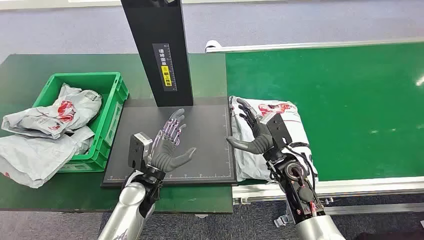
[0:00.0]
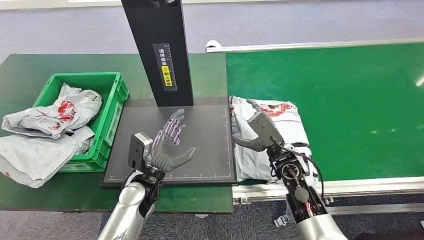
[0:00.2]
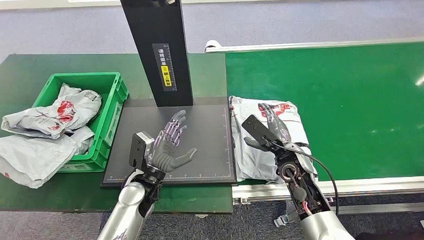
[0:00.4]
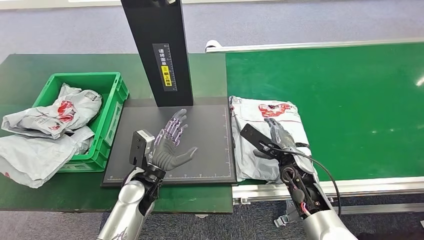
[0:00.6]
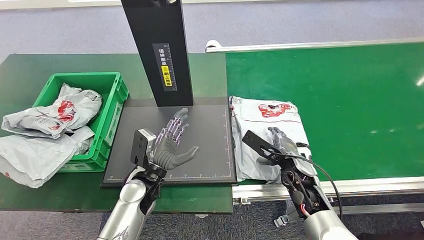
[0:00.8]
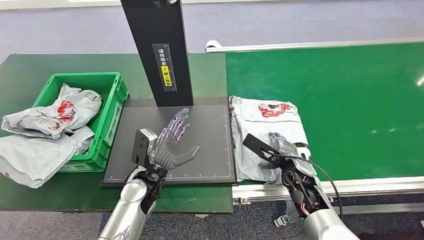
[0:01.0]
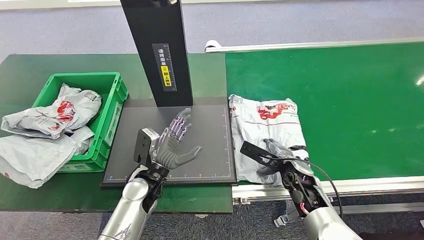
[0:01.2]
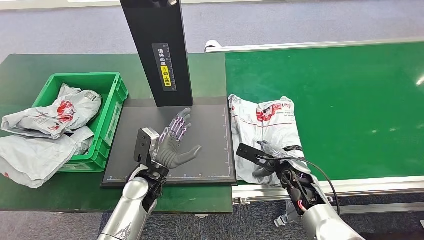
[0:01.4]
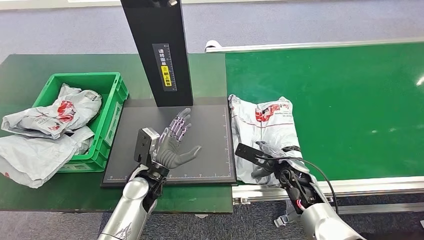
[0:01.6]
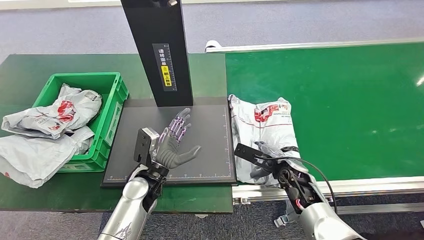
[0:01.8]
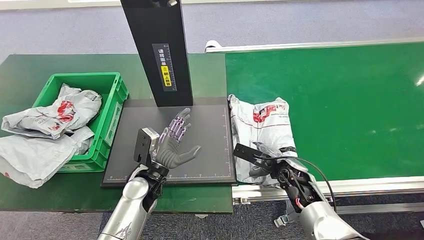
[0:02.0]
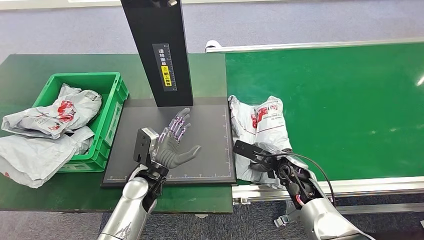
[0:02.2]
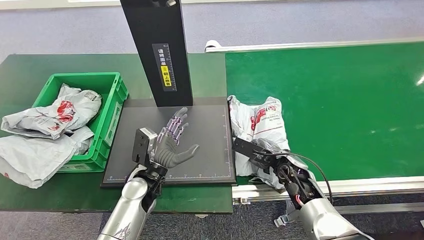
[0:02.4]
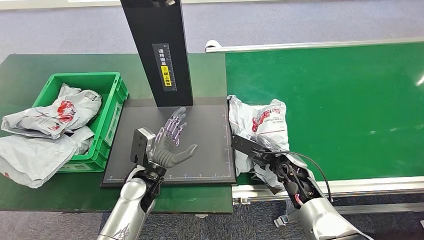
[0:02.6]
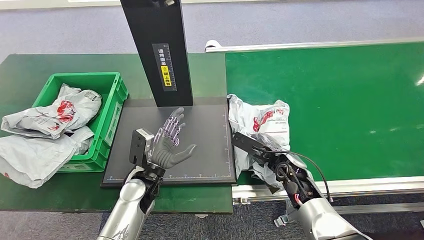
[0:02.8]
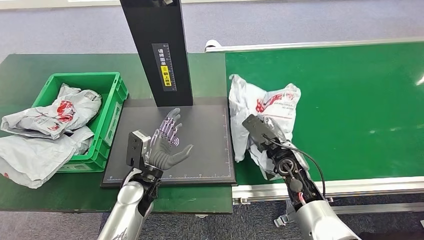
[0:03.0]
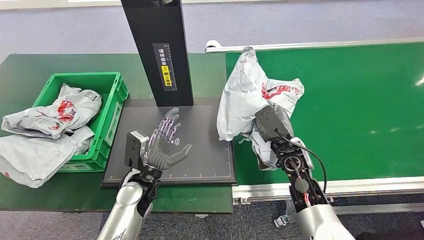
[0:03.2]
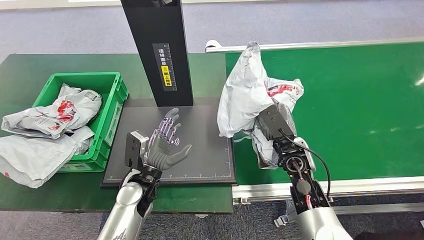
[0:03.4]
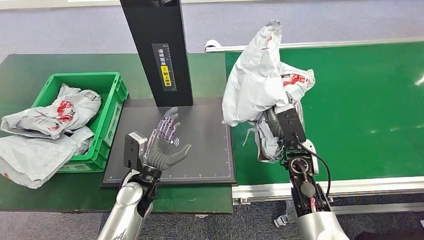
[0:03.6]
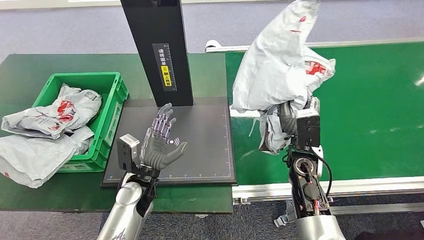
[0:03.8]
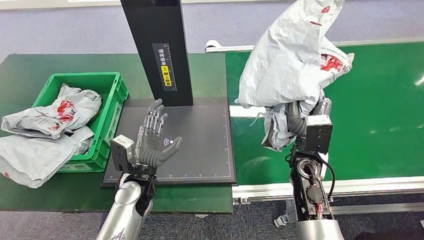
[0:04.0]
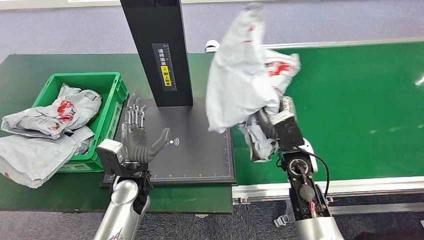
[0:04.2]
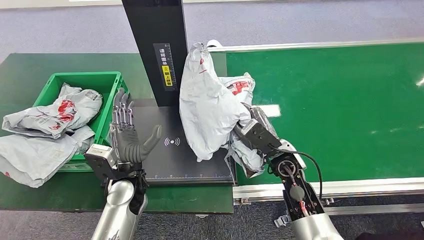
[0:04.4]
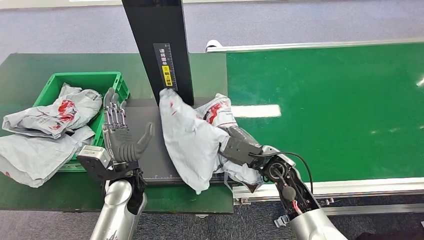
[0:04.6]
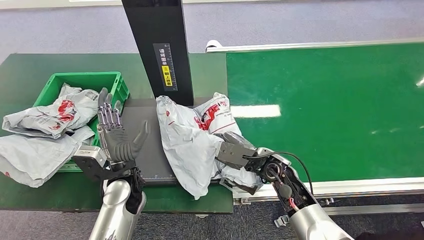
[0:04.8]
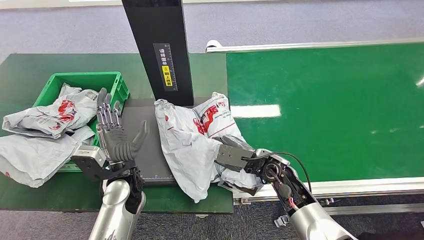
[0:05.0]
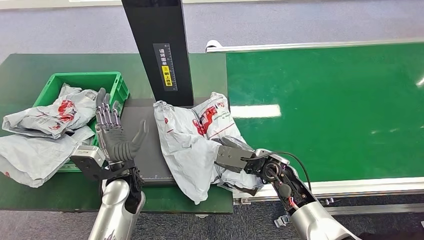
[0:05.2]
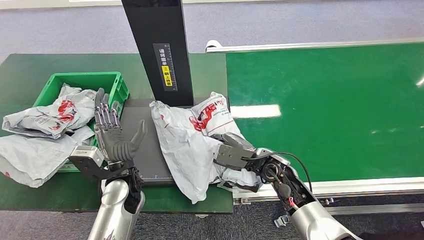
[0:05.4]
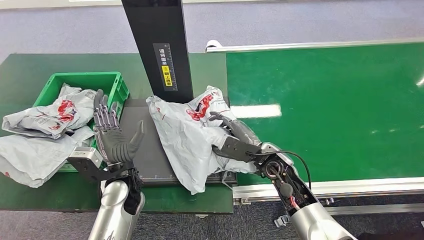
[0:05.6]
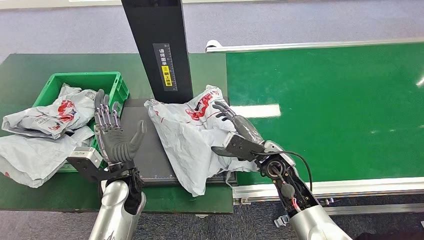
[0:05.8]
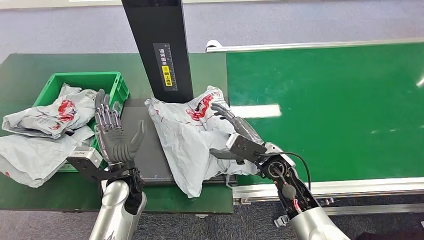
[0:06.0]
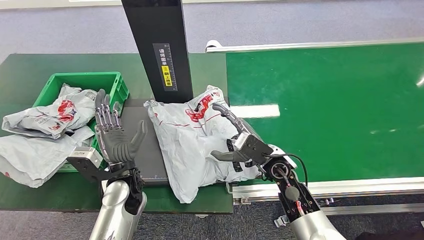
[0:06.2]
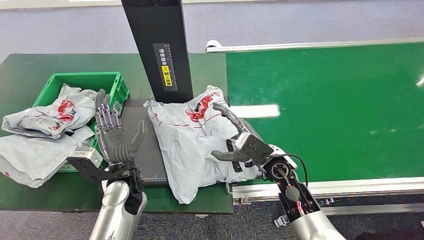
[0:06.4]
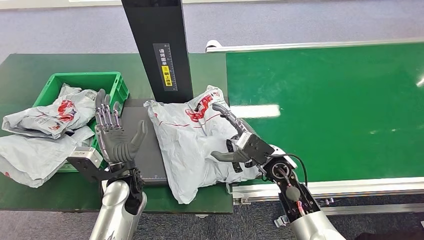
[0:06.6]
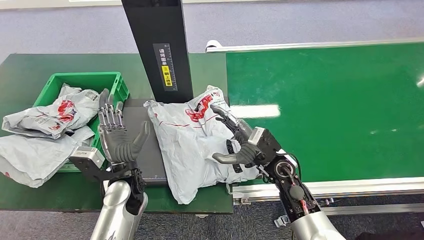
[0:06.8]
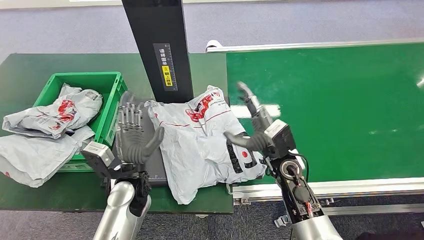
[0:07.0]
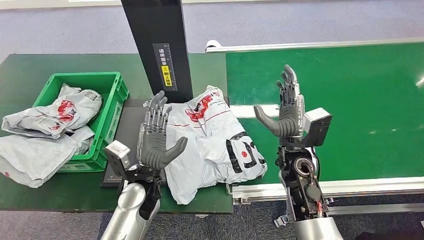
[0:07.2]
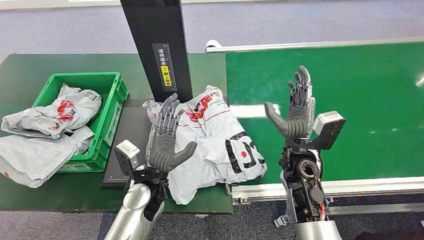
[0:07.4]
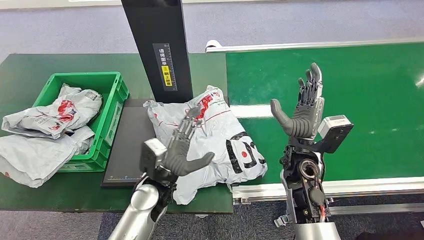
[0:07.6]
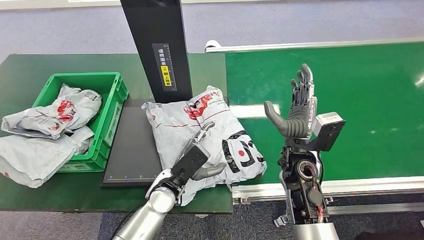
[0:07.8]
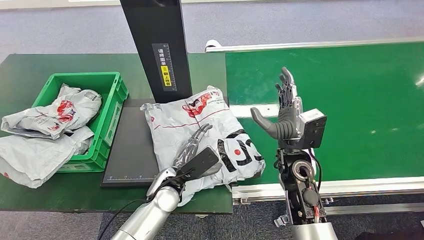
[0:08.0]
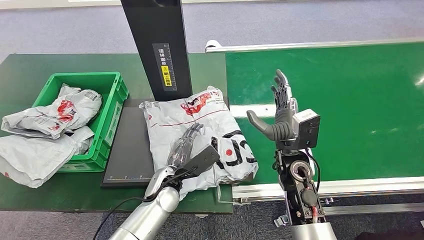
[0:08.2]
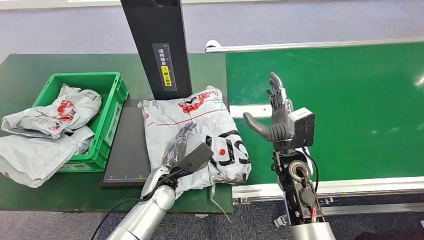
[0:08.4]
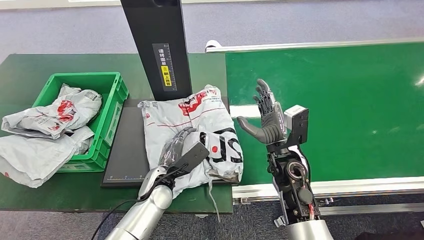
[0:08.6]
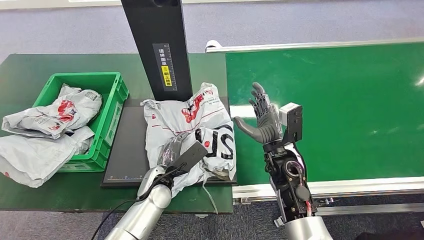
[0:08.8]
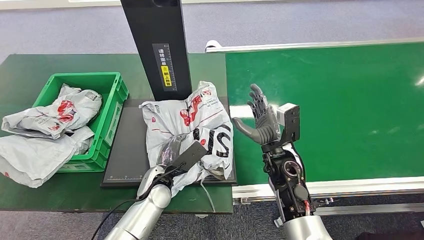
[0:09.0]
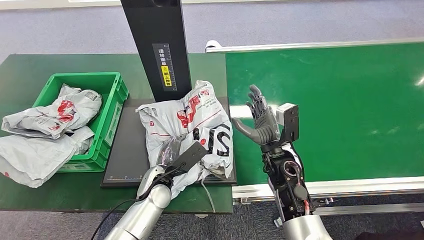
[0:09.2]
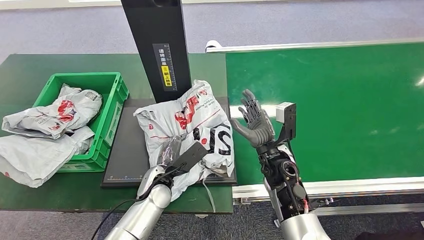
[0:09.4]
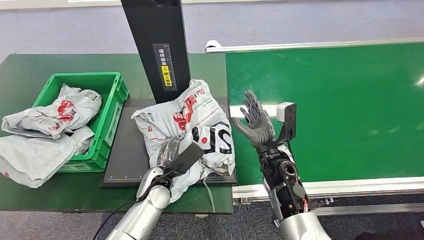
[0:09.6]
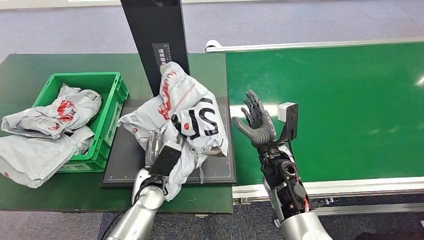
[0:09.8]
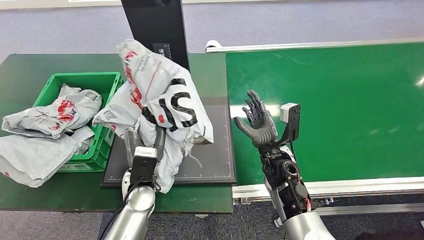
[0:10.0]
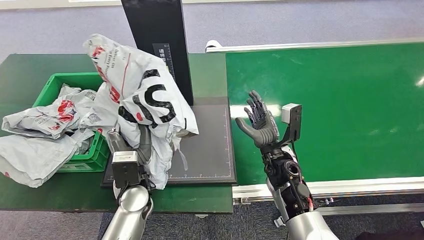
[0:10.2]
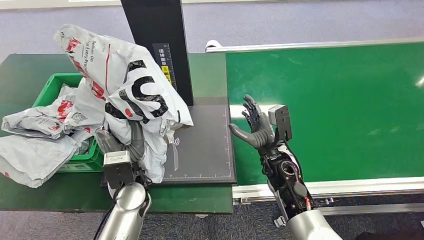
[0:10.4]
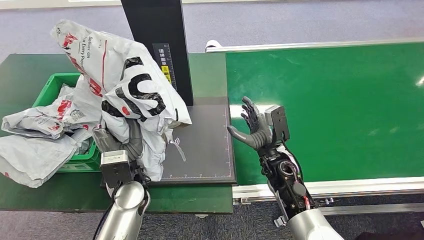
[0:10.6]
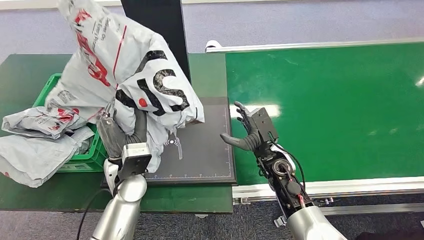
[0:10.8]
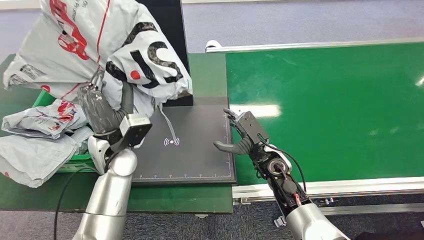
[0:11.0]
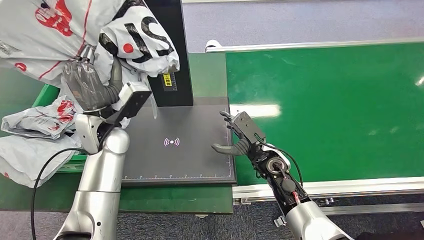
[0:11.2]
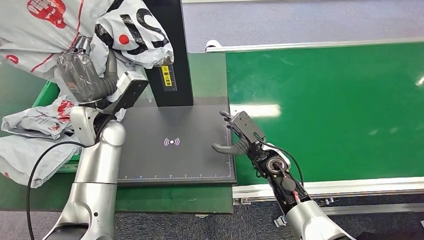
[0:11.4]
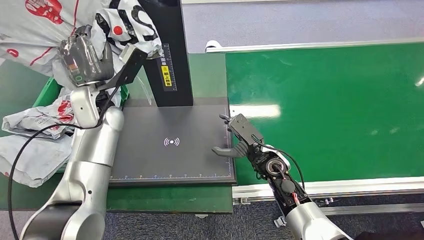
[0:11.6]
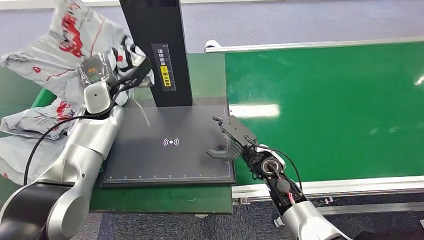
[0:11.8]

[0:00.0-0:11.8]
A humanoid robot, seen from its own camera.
Step, 0:00.0 to 0:03.2: Pick up the package from the conveyor belt.
Step, 0:03.4 to 0:05.0: Place the package onto the inbound machine.
Step, 0:05.2 to 0:10.2: Pick up the package from the inbound machine.
0:06.0 to 0:07.4: The left hand travels to the right by approximately 5 cm. The right hand ends up approximately 5 cm from where it was.
0:07.4 to 0:08.8: The left hand goes some 5 cm downward.

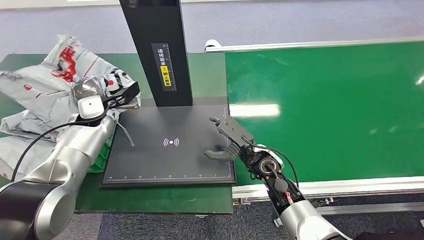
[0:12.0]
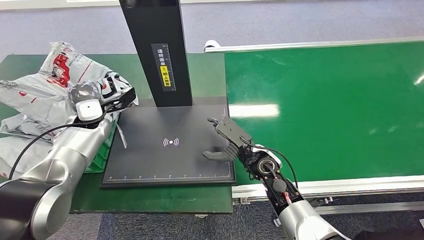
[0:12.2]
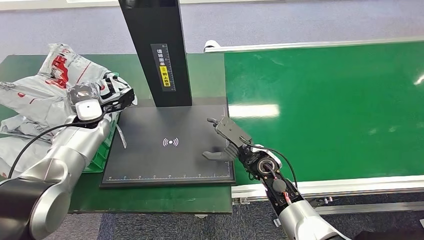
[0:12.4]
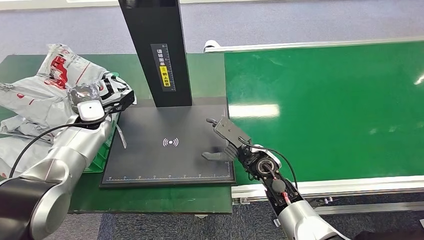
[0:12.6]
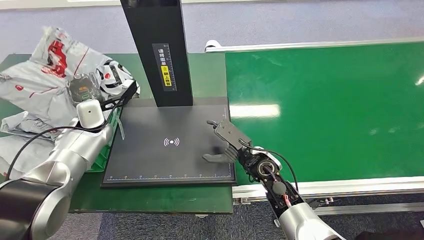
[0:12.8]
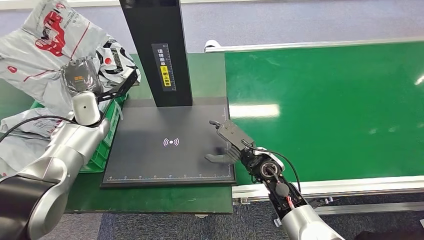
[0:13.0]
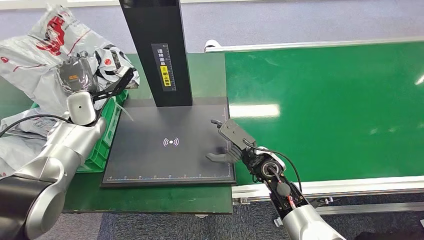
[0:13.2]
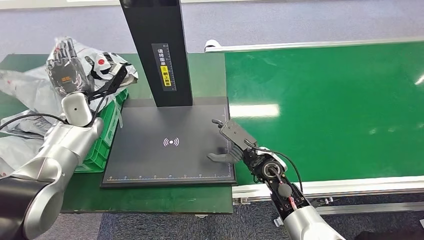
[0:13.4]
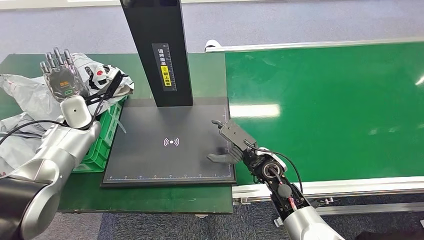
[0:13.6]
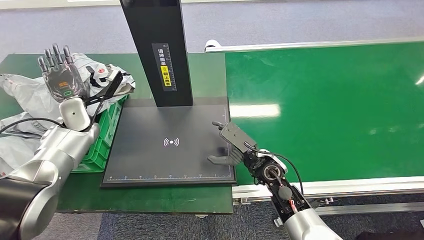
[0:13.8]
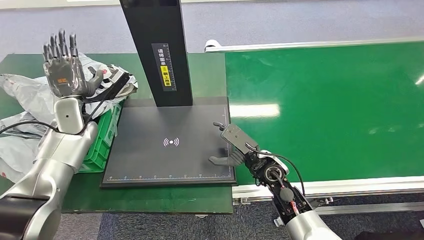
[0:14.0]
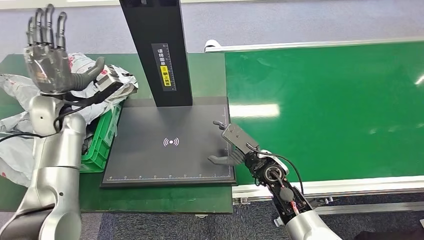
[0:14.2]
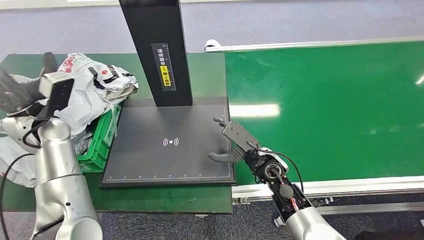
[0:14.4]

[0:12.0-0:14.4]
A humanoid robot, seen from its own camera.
Step, 0:12.0 to 0:14.4: Place the package into the parcel locker.
0:13.2 to 0:14.4: The left hand is displaced backward and upward by roughly 10 cm.

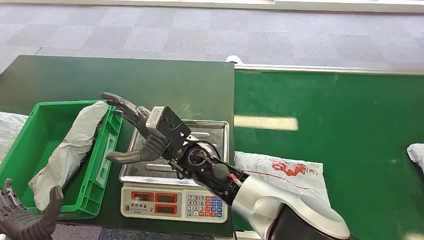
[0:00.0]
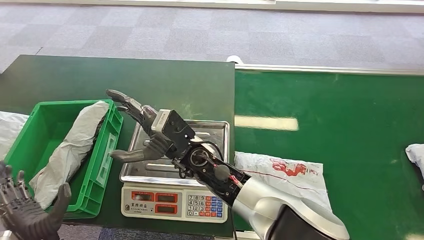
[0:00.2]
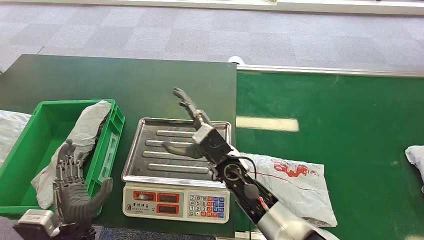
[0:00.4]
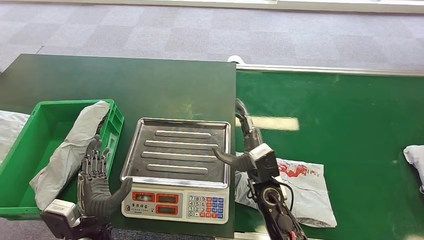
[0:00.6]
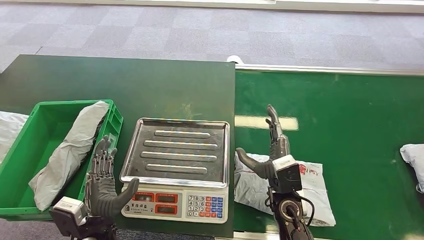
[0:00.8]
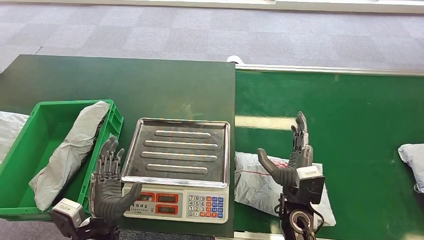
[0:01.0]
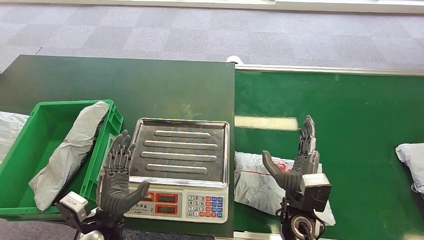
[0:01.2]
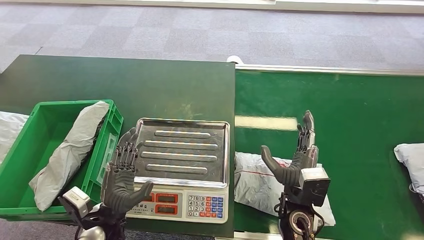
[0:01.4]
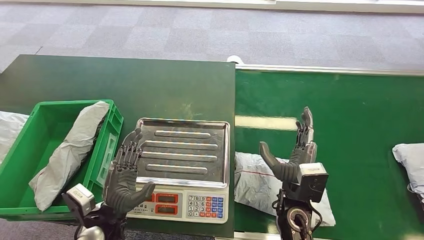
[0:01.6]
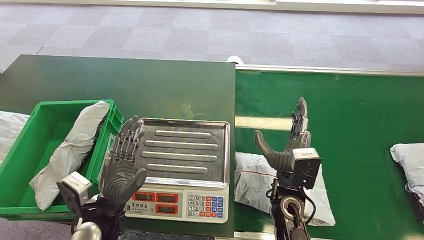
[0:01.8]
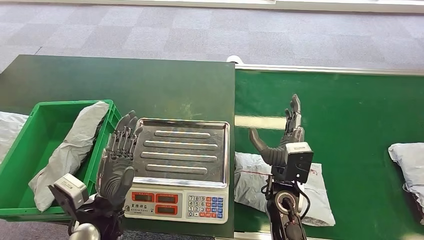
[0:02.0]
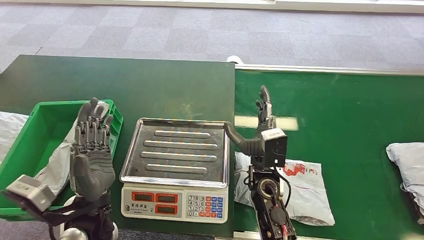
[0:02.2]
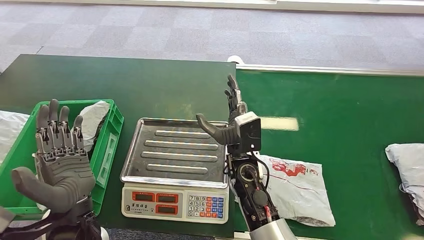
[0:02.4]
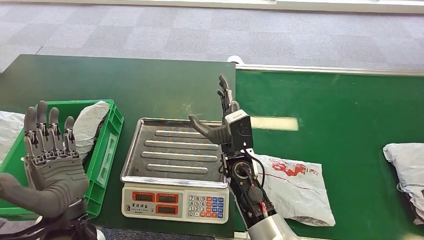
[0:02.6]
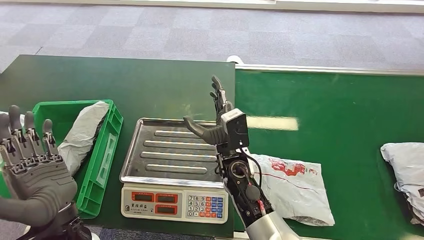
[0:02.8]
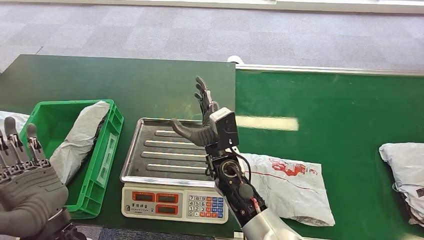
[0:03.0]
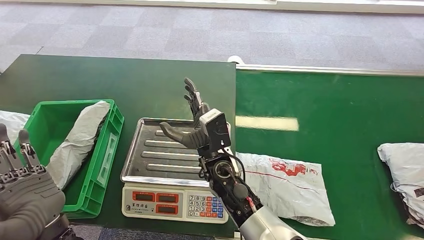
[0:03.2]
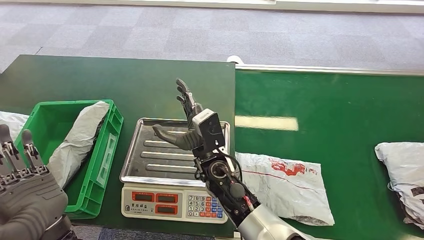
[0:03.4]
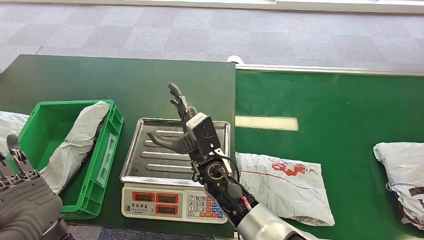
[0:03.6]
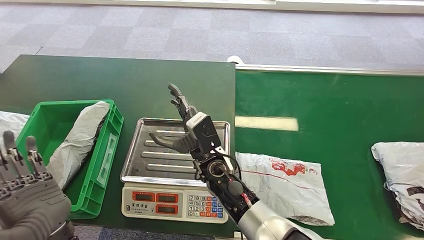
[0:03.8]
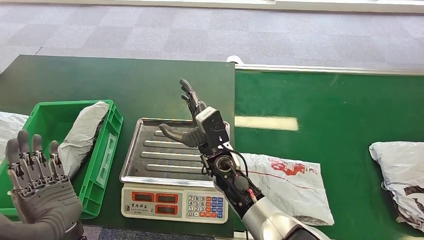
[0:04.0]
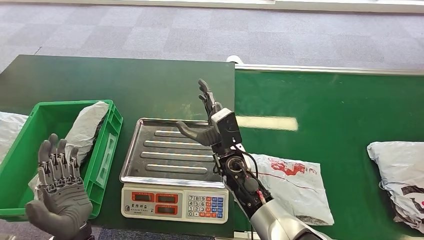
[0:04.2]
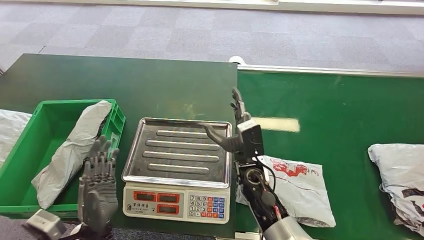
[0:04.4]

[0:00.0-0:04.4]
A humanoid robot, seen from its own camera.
0:01.4 to 0:03.0: The left hand shifts about 15 cm upward and backward. Meanwhile the right hand travels to the left and forward by approximately 15 cm.
0:03.0 to 0:04.4: The right hand goes roughly 5 cm to the right. Meanwhile the left hand is displaced downward by approximately 10 cm.
